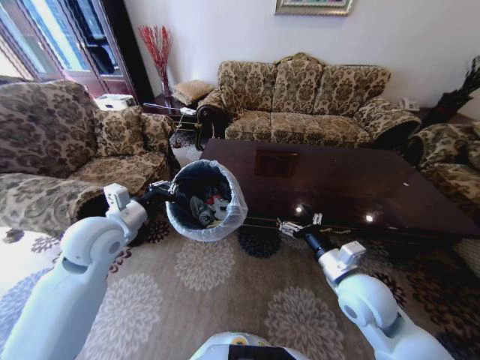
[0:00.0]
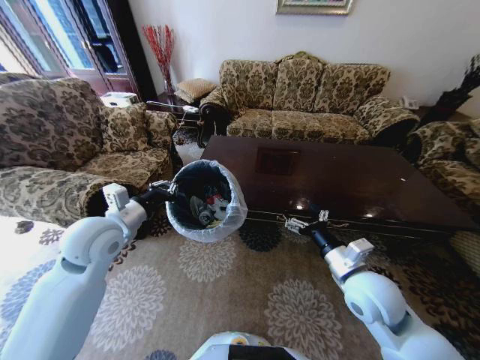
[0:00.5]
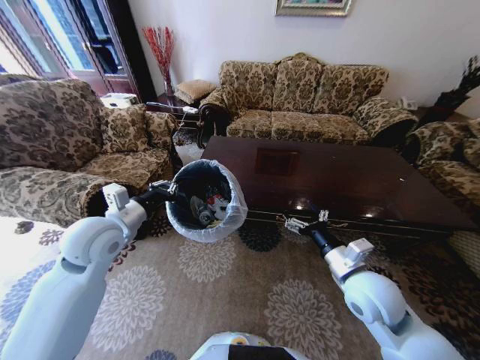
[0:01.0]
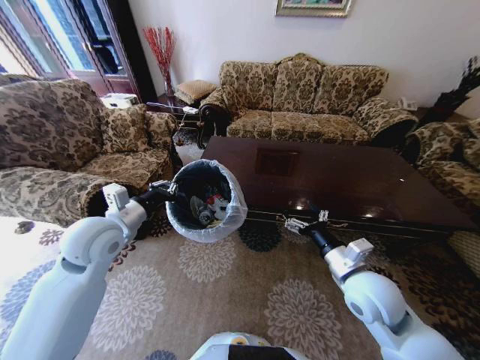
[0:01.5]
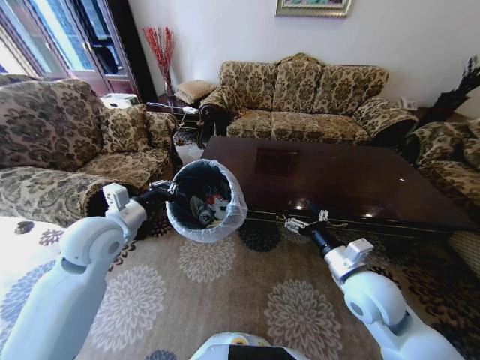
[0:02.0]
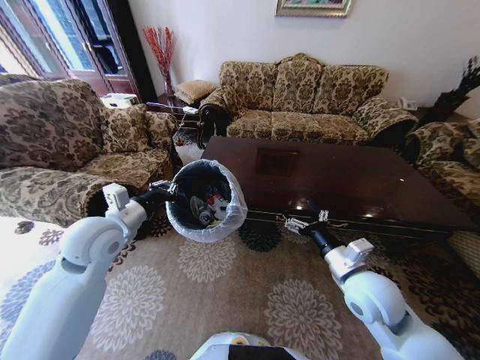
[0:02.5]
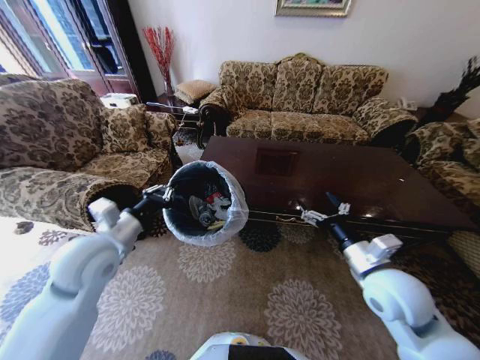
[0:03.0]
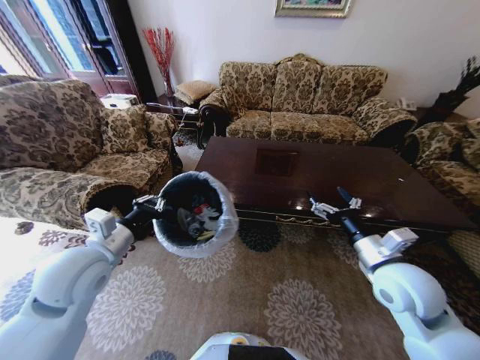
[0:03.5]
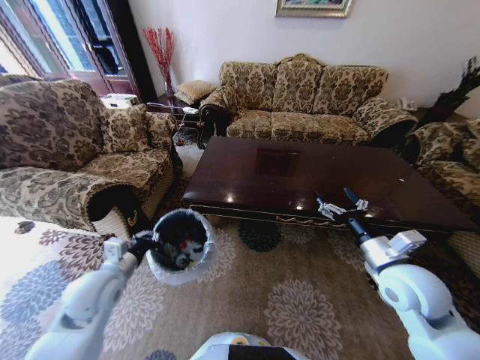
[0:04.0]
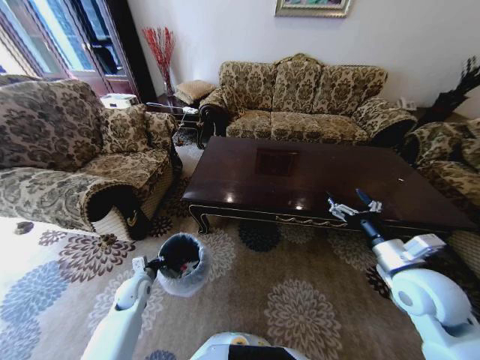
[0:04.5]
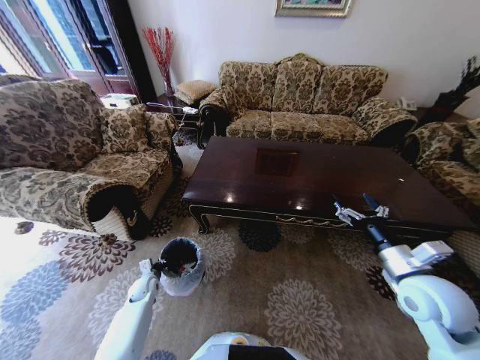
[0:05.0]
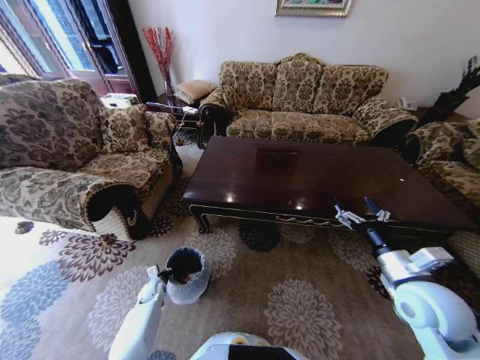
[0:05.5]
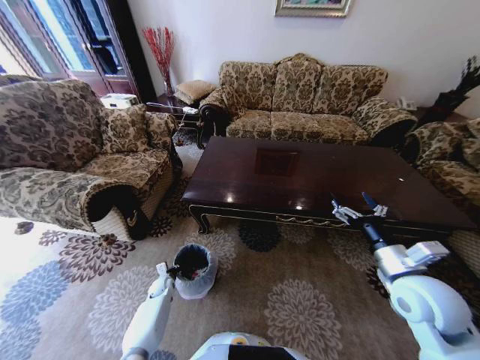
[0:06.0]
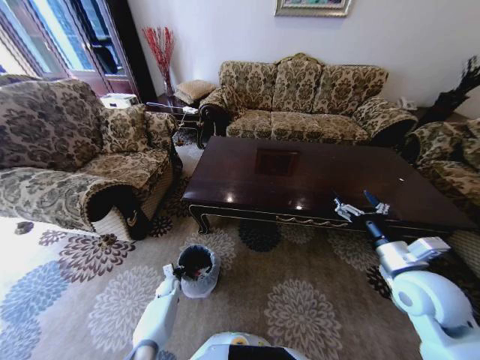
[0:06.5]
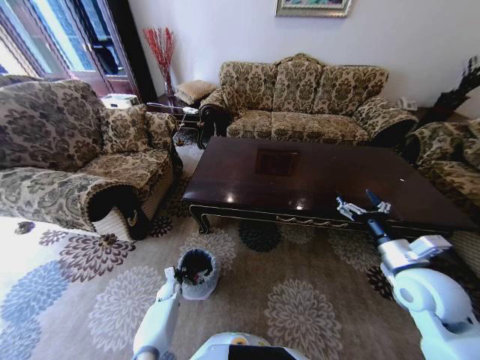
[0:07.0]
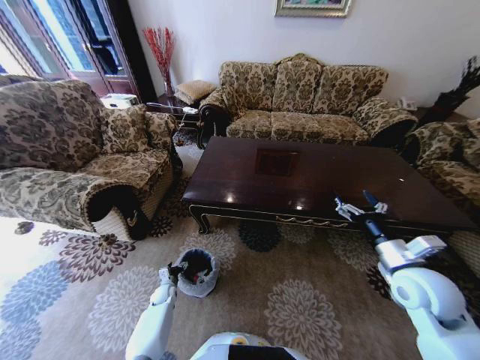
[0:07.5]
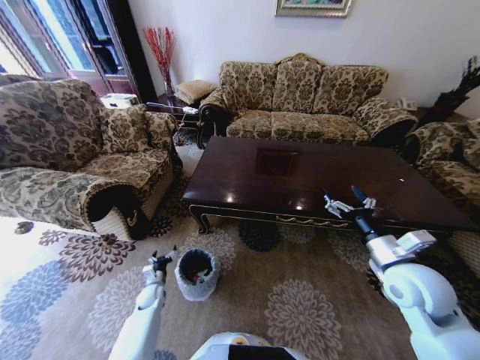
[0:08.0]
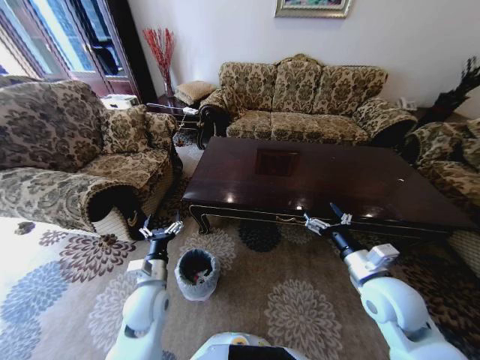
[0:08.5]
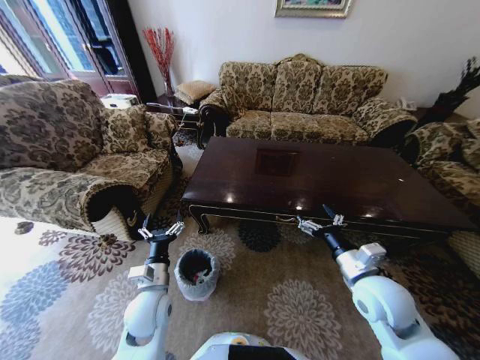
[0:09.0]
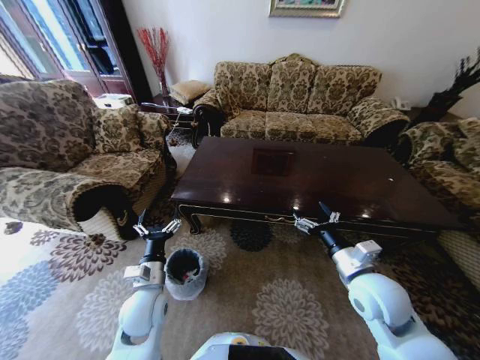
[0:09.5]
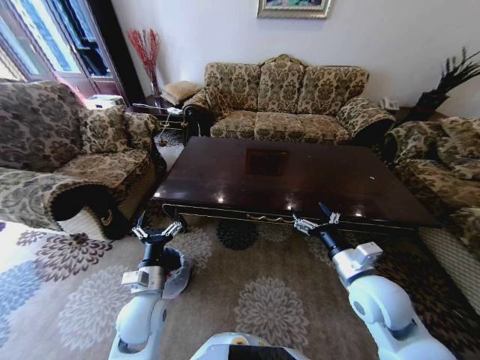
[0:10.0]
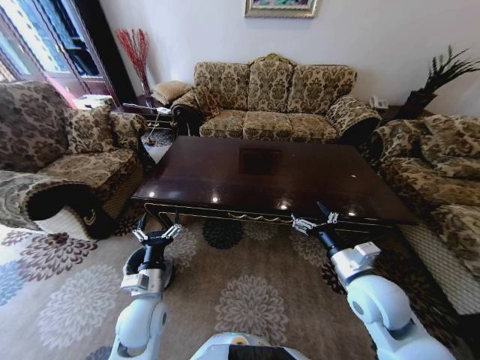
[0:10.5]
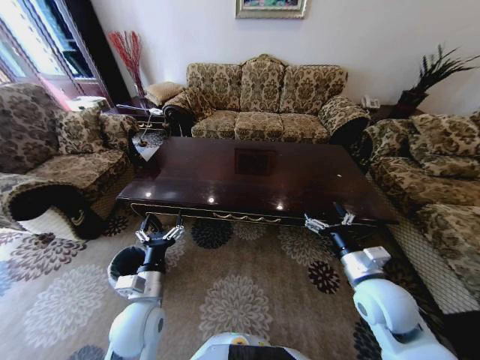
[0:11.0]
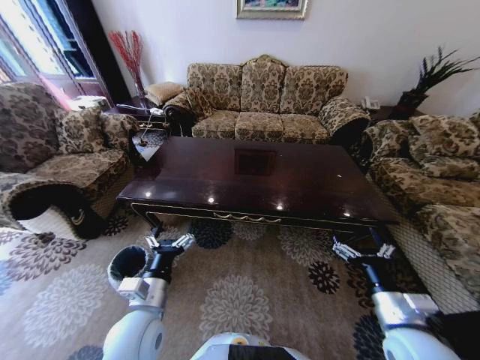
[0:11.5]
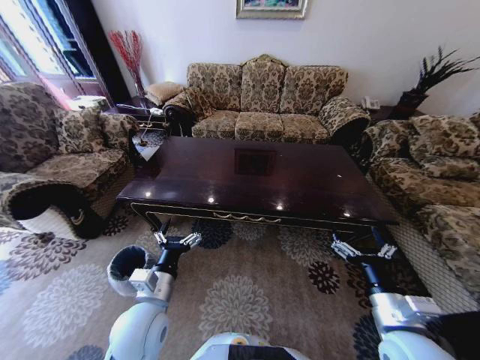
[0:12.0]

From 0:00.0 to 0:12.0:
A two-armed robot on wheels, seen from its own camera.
Task of the whole recording: Move to the front of the table and place the trash on the table into the trash bin.
From 0:00.0 to 0:02.0: There are only small adjustments of the grippers.
From 0:02.0 to 0:04.0: The left gripper heads downward and backward, covering roughly 15 cm; the right gripper is displaced to the right by about 5 cm.
From 0:04.0 to 0:06.0: The left gripper is displaced downward by roughly 35 cm.
From 0:06.0 to 0:08.0: The left gripper ends up roughly 5 cm from where it was, and opens.
From 0:08.0 to 0:10.0: The left gripper moves upward and to the right, approximately 30 cm. Meanwhile the right gripper travels to the left by about 5 cm.
From 0:10.0 to 0:12.0: The left gripper shifts by about 5 cm, while the right gripper heads backward, covering about 10 cm.

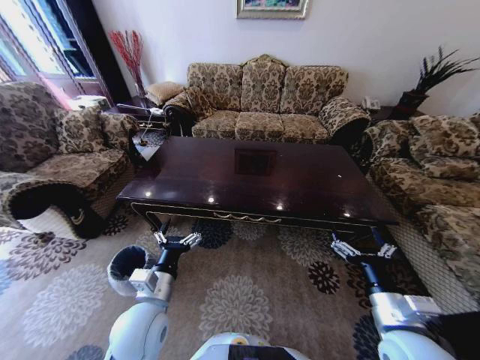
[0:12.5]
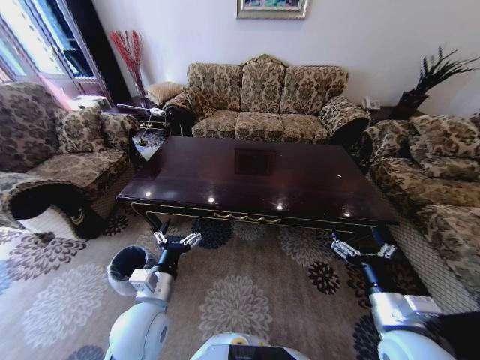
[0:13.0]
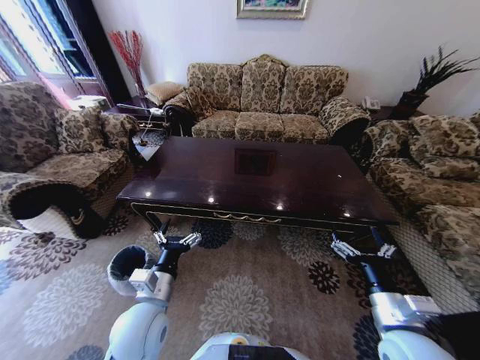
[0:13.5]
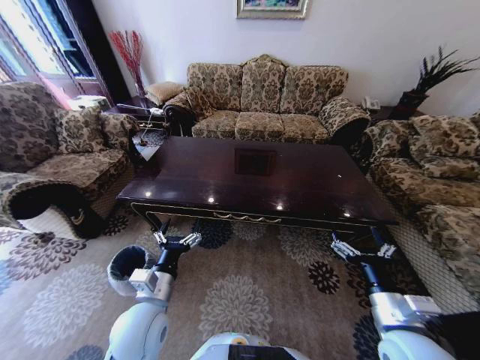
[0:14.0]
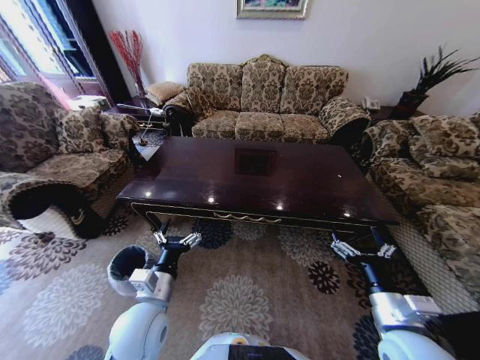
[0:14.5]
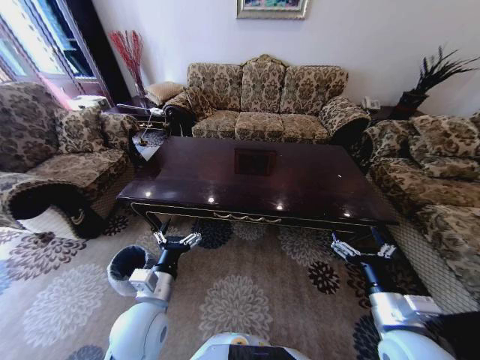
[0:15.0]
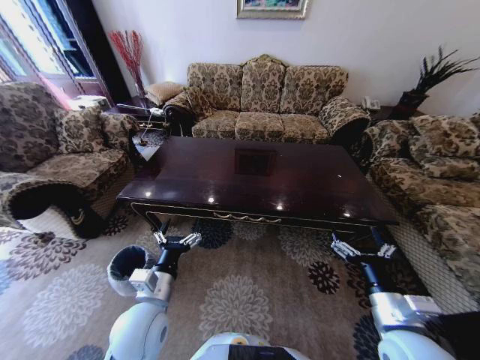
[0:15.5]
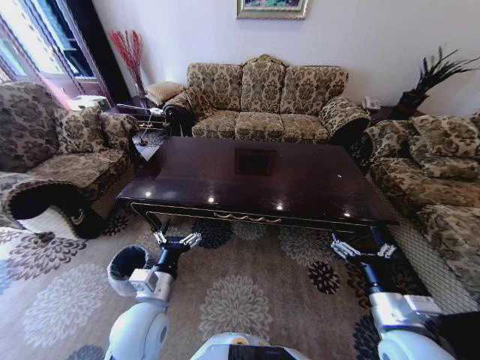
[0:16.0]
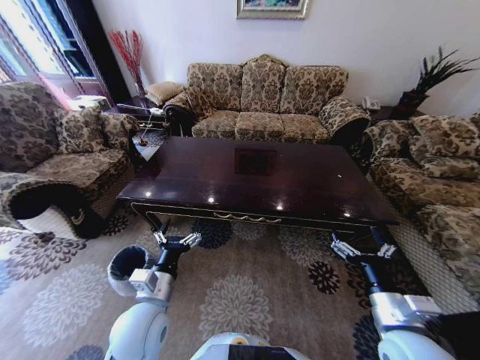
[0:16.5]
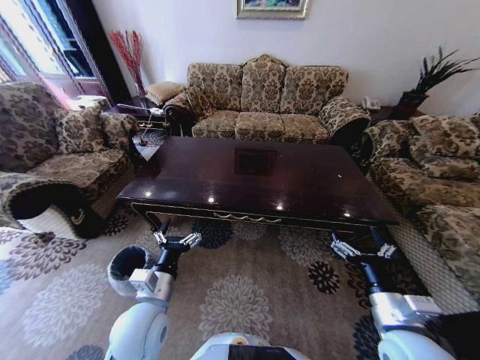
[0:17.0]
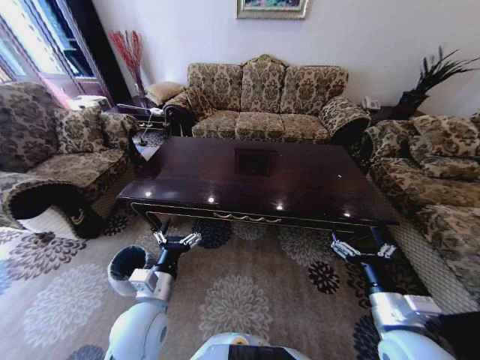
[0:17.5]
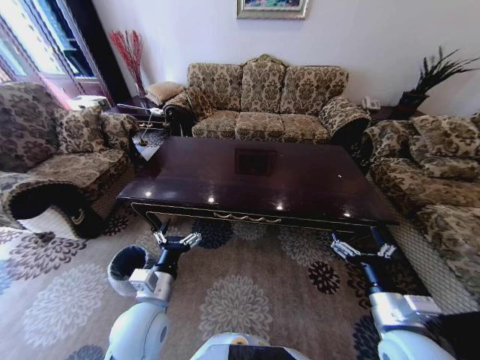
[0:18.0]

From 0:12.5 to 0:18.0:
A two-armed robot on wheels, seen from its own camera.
Task of the whole recording: Move to the front of the table and place the trash on the table into the trash bin.
From 0:12.5 to 0:18.0: The two grippers keep their place.

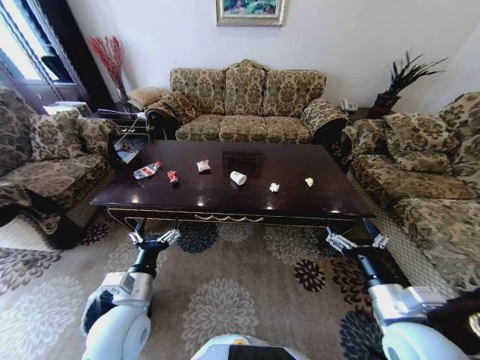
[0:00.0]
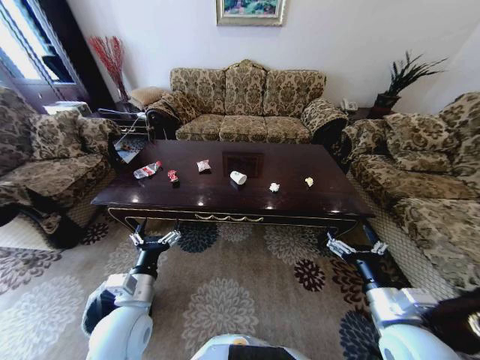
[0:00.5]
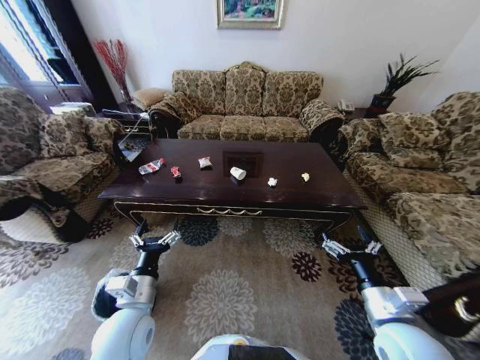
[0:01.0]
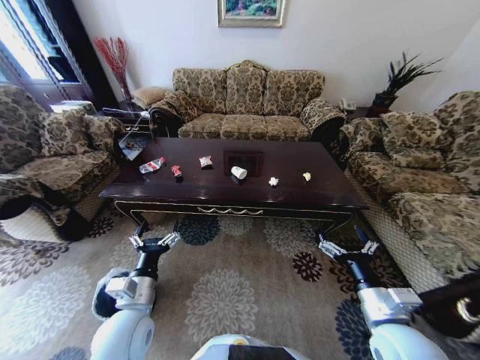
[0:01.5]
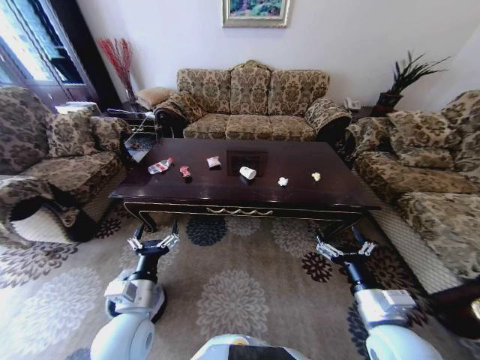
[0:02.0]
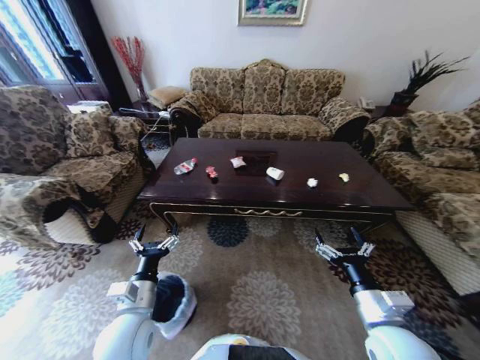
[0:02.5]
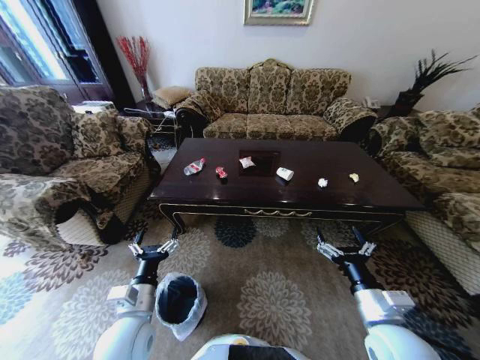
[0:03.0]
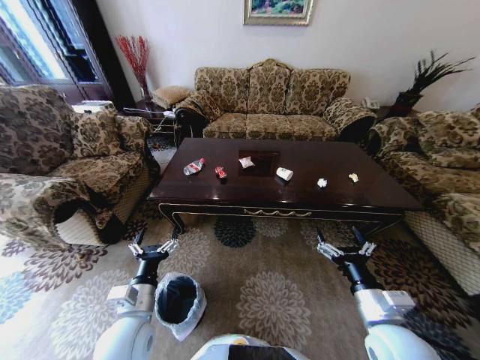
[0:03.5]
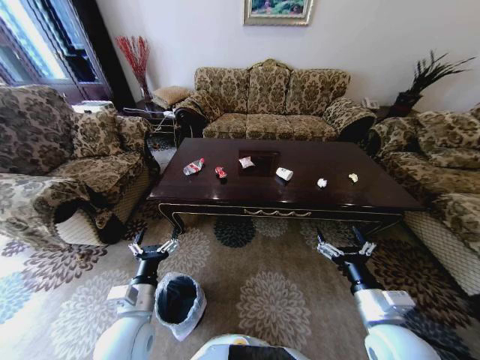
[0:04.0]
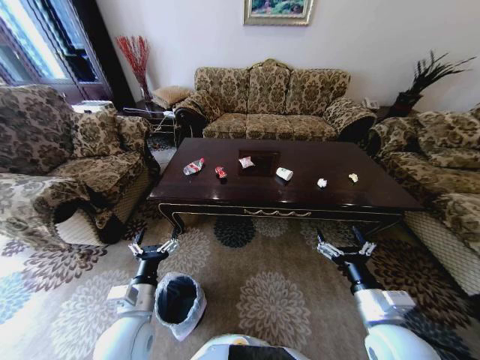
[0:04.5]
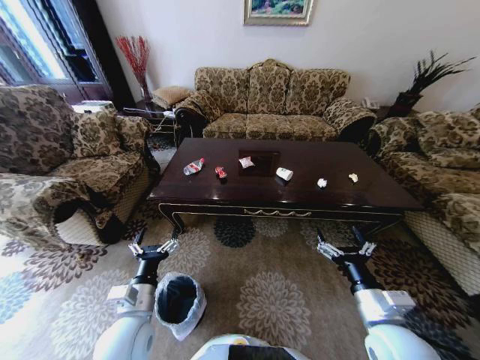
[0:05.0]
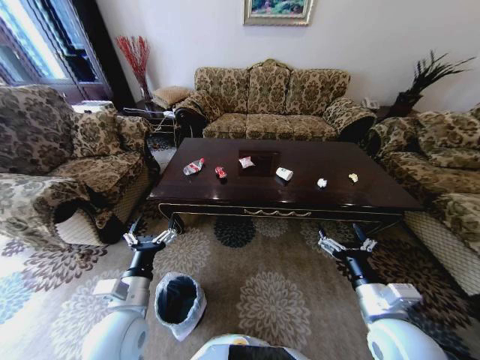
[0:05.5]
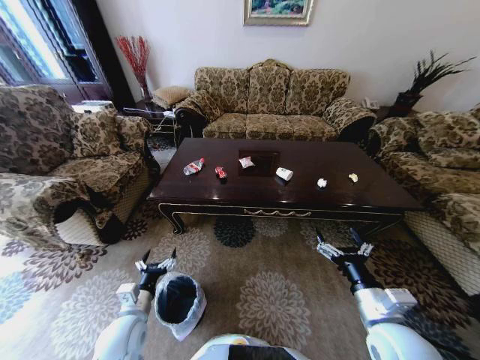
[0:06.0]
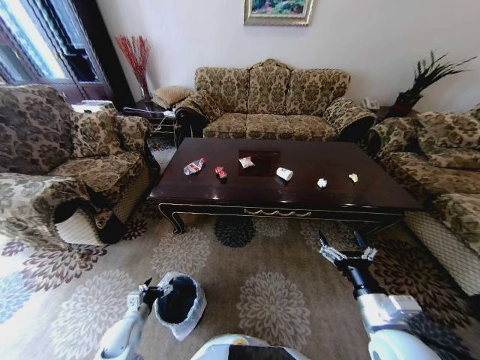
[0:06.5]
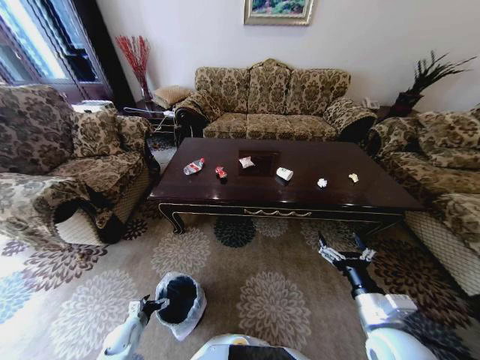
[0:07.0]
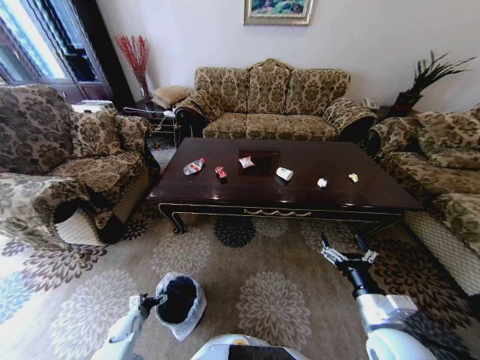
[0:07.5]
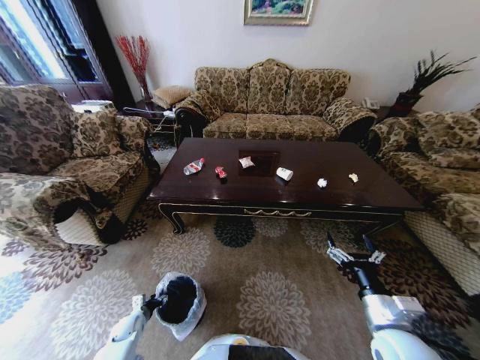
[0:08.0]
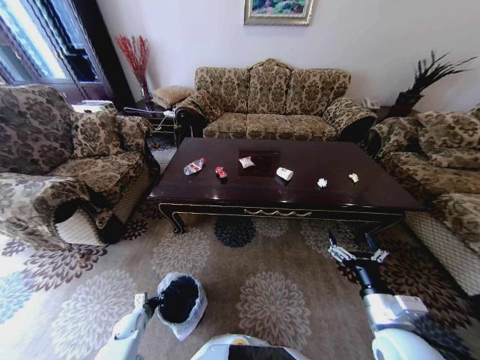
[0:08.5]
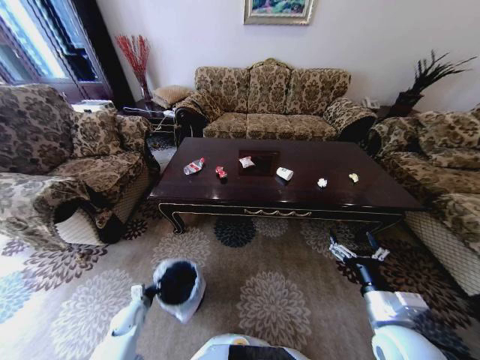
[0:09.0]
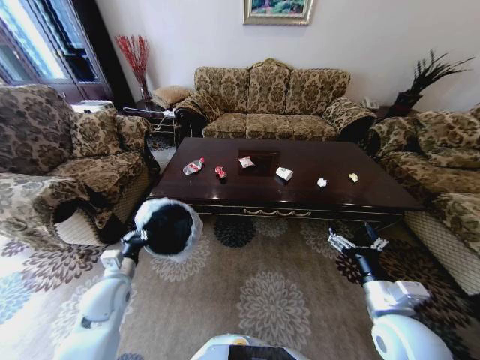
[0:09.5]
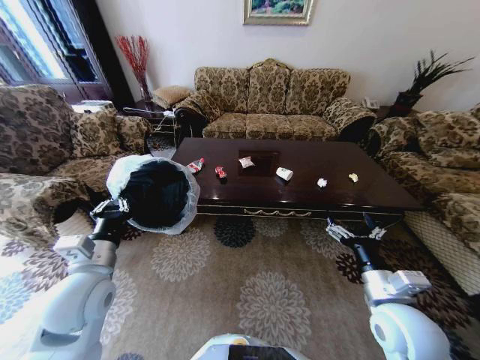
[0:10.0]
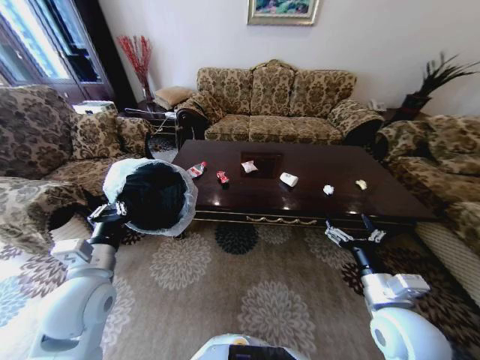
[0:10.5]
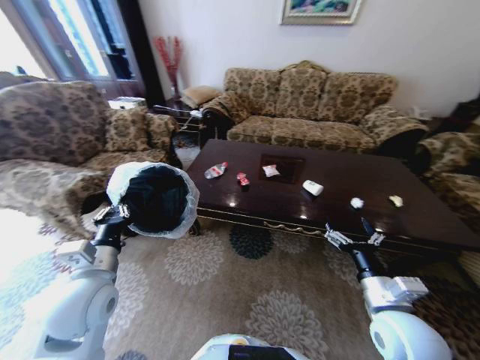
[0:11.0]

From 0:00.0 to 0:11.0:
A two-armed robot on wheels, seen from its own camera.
Task of the whole recording: Move to the front of the table and place the trash on the table into the trash bin.
From 0:03.5 to 0:05.5: The grippers make only small movements.
From 0:05.5 to 0:07.5: The left gripper goes some 35 cm downward and to the left.
From 0:07.5 to 0:09.0: The left gripper closes its fingers.
From 0:09.0 to 0:11.0: The left gripper moves upward, roughly 35 cm.
